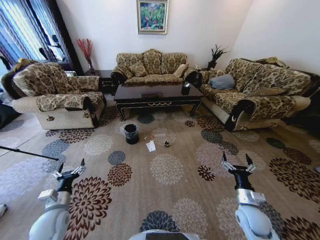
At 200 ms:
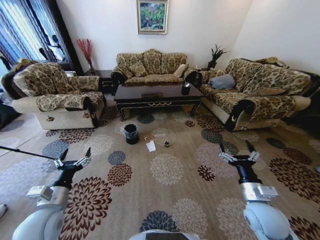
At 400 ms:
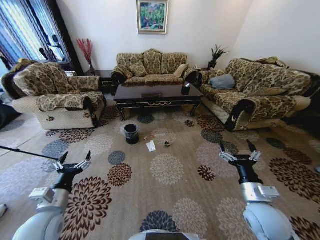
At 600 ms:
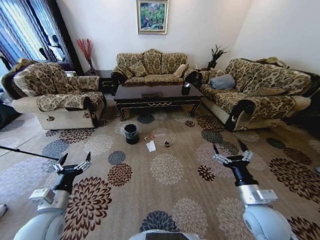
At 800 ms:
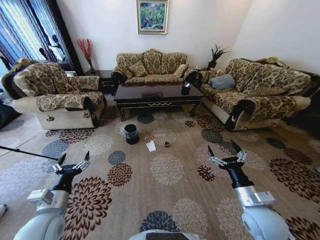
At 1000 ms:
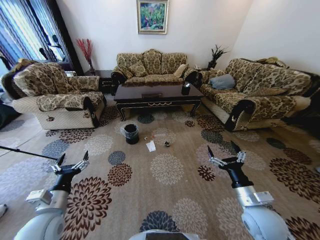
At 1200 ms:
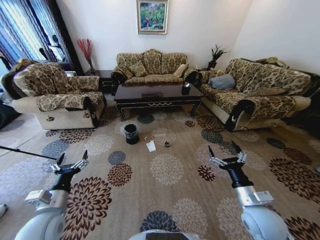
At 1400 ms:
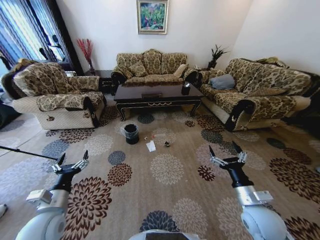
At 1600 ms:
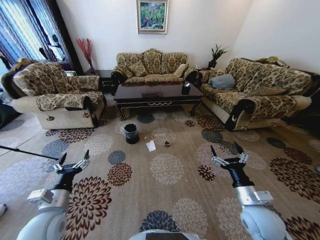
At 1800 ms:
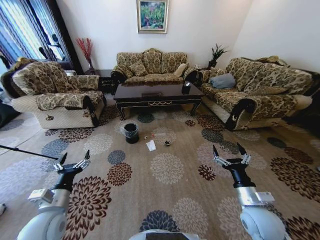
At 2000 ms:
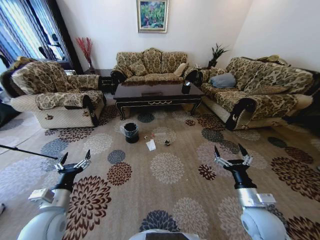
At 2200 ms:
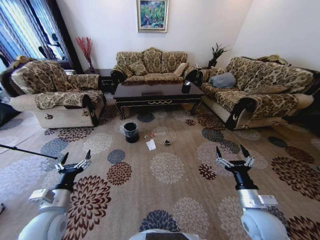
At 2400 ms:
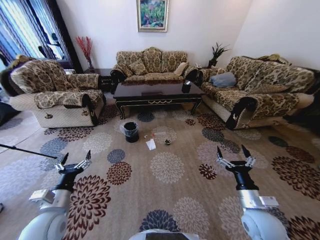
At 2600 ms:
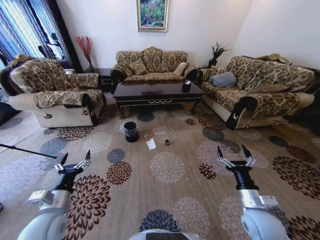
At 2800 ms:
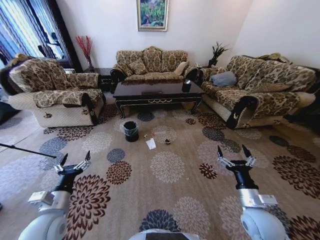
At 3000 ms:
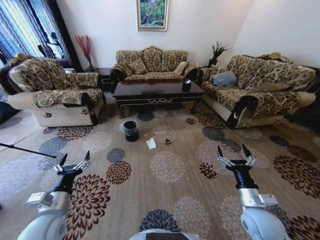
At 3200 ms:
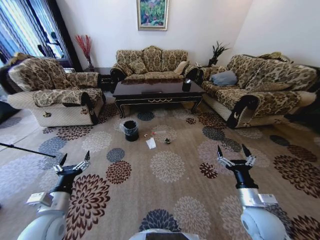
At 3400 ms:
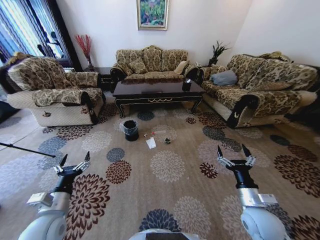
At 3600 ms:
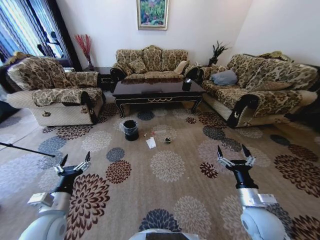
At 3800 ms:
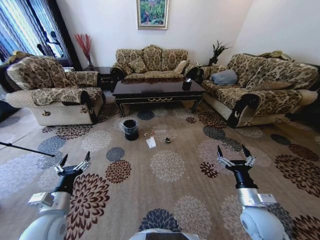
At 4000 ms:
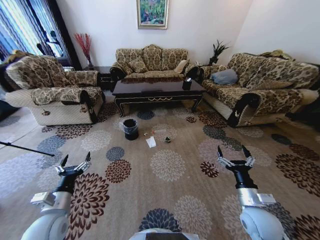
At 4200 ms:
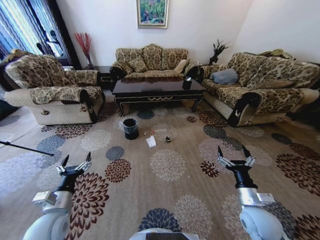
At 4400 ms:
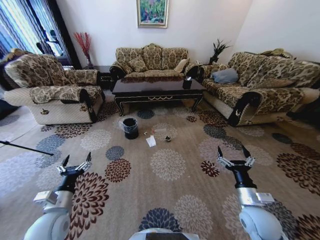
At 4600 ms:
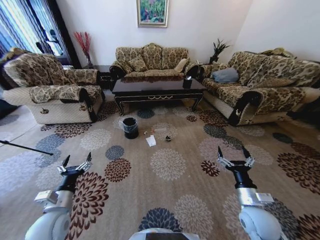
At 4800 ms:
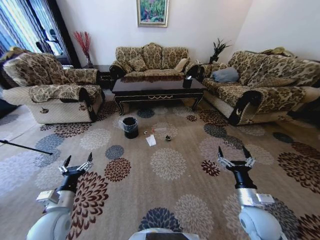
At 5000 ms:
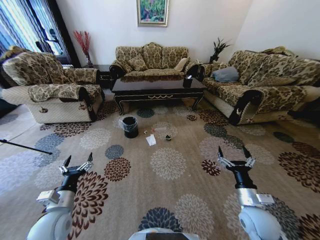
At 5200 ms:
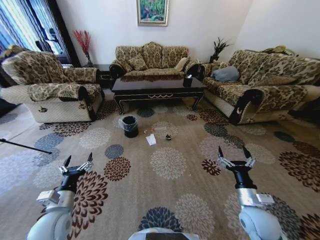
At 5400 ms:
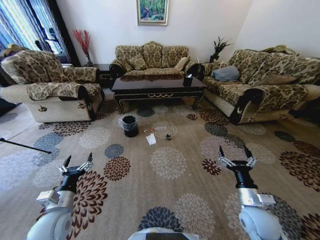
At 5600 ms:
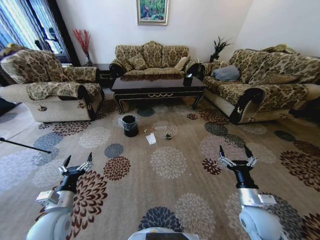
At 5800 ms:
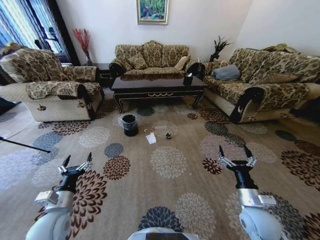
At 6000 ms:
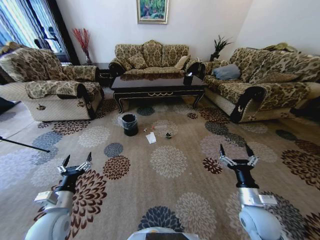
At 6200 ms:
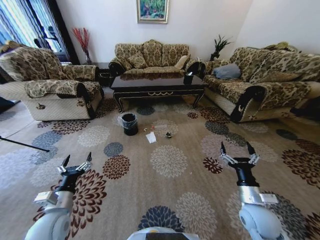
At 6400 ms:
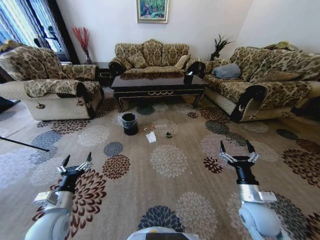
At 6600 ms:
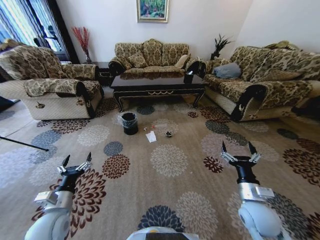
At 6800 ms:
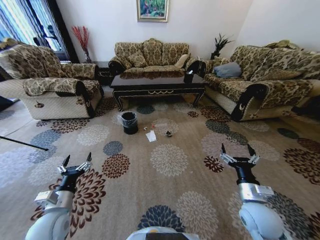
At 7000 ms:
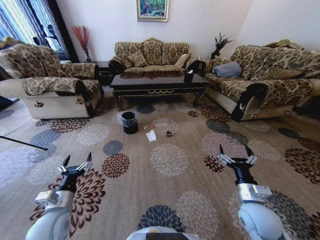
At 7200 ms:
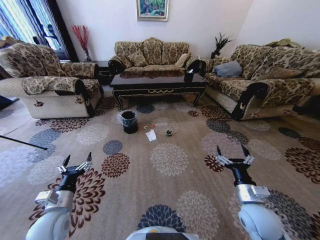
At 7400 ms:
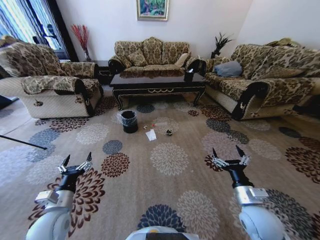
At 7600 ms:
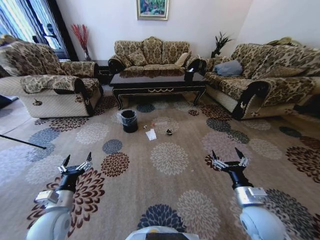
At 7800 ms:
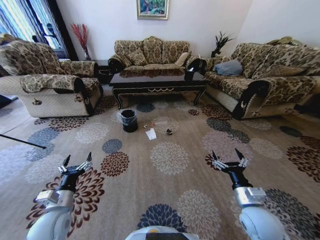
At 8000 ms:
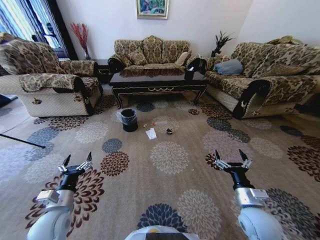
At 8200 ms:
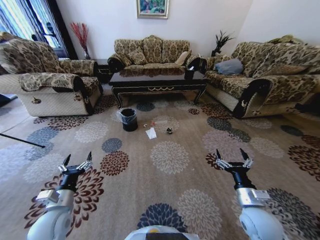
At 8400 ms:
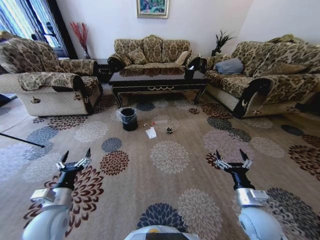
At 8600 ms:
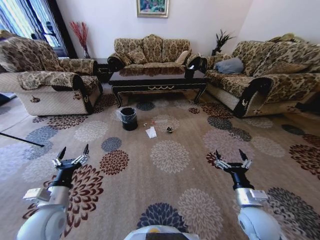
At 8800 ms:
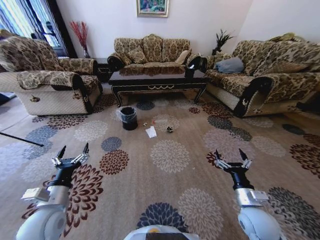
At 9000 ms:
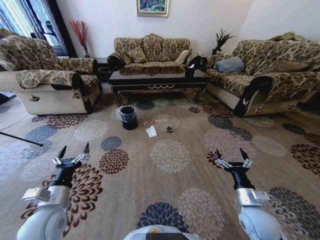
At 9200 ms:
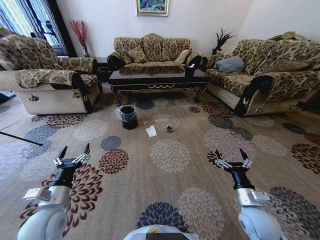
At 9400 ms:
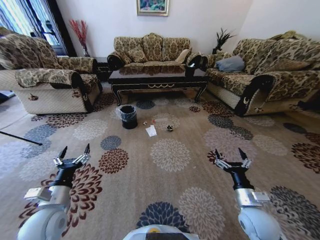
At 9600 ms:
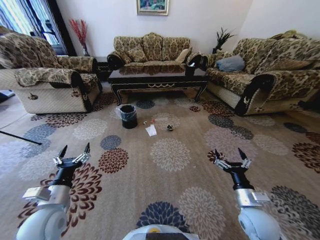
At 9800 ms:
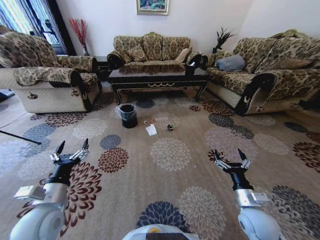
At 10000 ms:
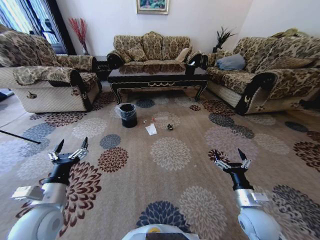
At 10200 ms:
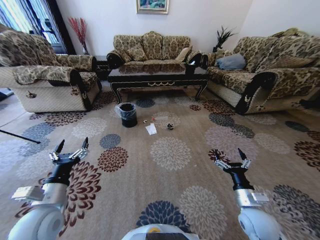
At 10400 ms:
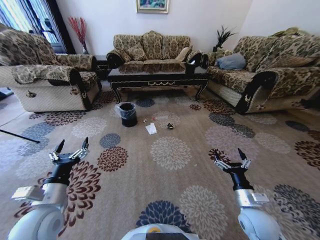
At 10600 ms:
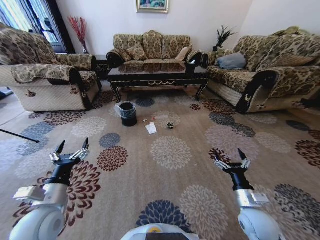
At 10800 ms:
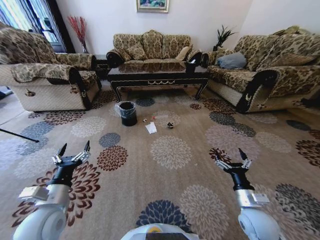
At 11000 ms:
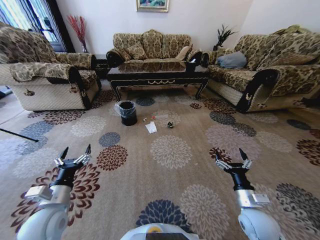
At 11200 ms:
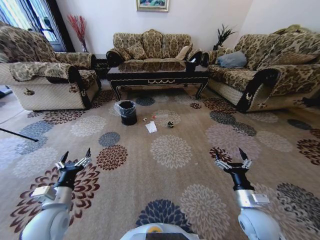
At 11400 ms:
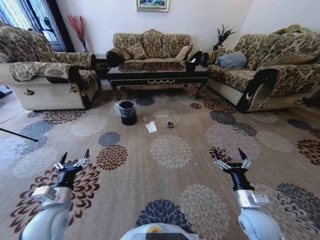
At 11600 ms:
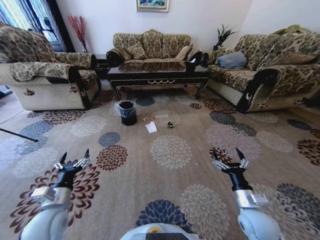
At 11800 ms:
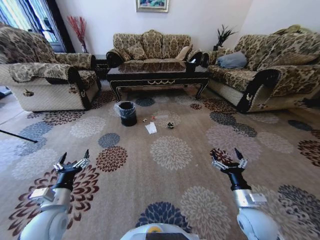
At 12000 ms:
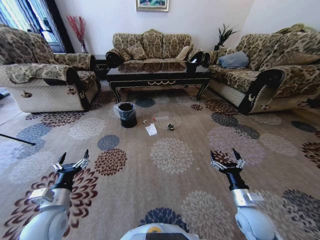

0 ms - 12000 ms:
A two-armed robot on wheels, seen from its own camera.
Task of the whole recording: Move to the front of the table and pick up the trash from the floor, then place it into the trash bin.
10400 ms - 12000 ms: The left gripper moves downward, approximately 5 cm.

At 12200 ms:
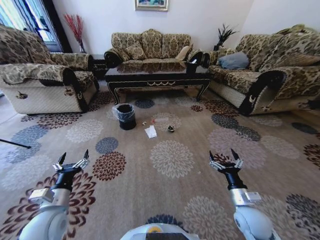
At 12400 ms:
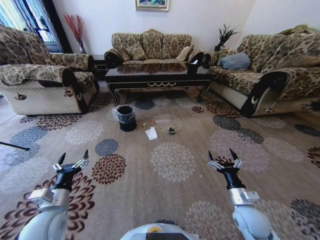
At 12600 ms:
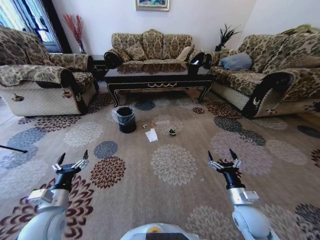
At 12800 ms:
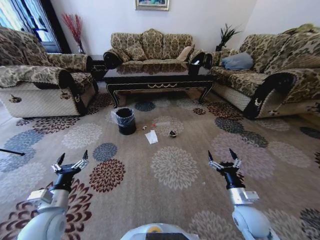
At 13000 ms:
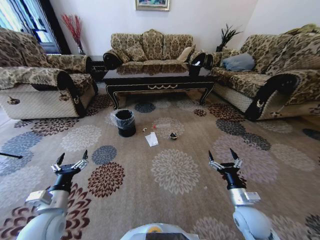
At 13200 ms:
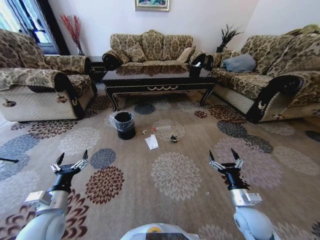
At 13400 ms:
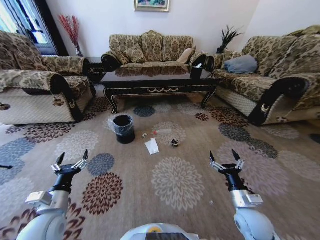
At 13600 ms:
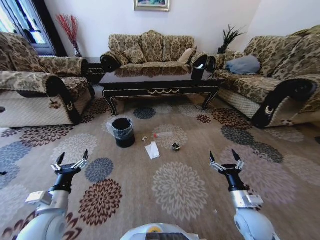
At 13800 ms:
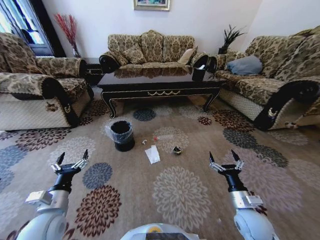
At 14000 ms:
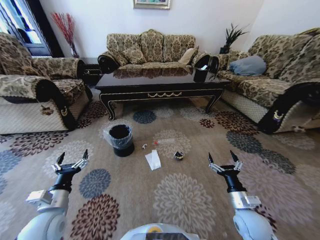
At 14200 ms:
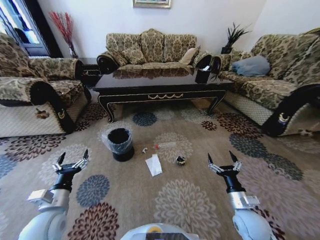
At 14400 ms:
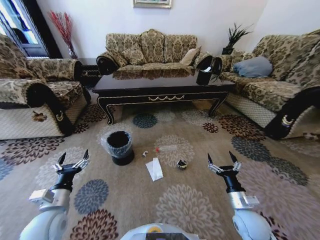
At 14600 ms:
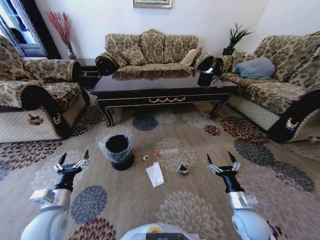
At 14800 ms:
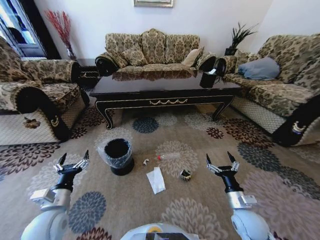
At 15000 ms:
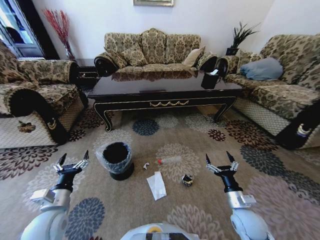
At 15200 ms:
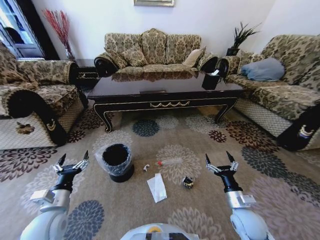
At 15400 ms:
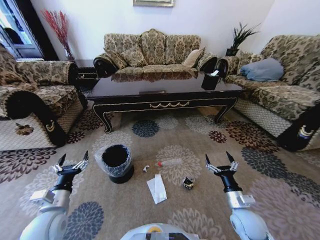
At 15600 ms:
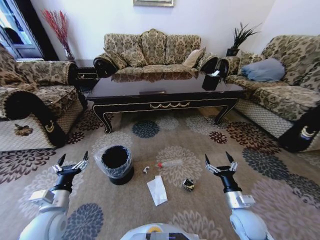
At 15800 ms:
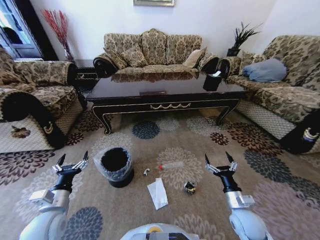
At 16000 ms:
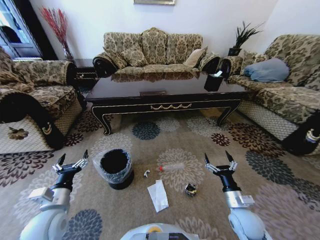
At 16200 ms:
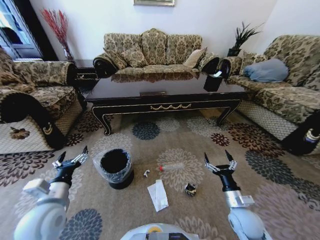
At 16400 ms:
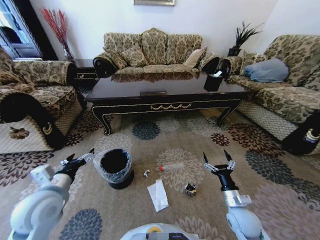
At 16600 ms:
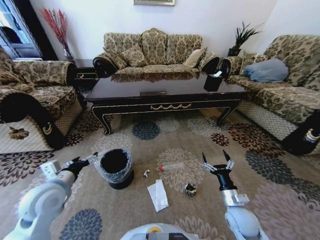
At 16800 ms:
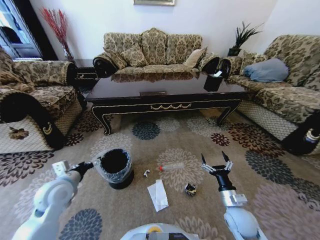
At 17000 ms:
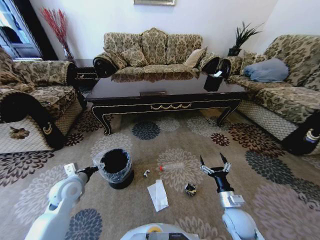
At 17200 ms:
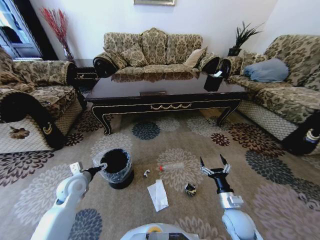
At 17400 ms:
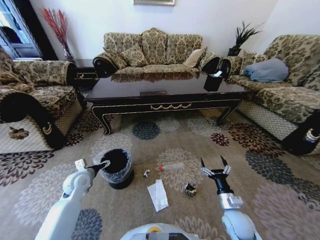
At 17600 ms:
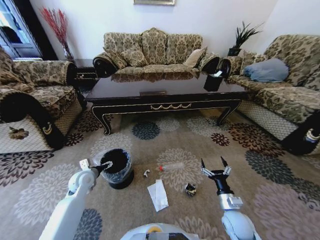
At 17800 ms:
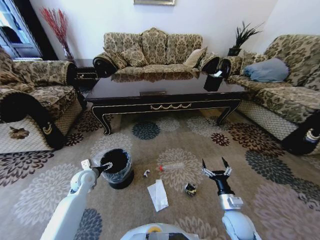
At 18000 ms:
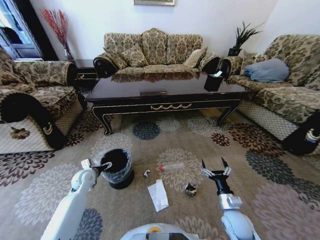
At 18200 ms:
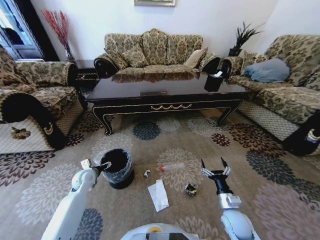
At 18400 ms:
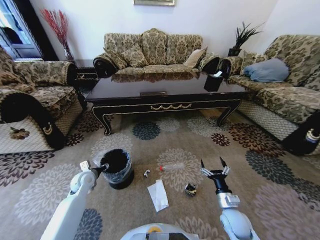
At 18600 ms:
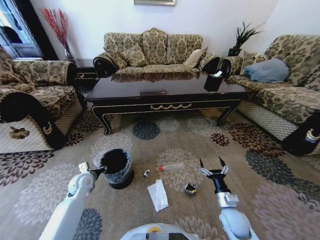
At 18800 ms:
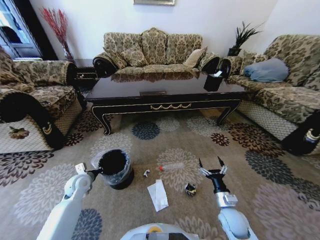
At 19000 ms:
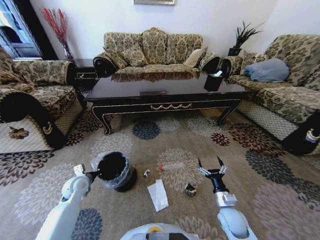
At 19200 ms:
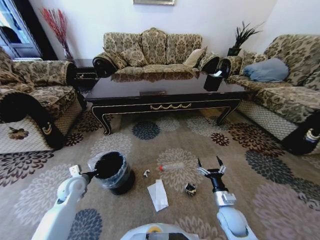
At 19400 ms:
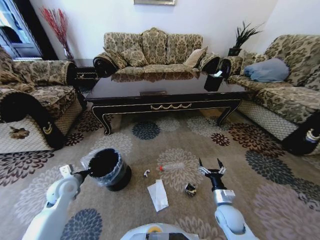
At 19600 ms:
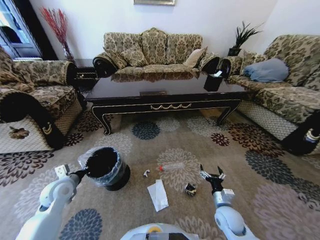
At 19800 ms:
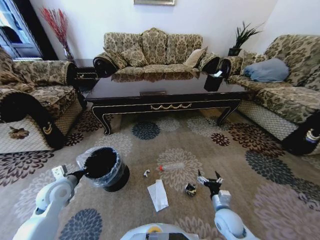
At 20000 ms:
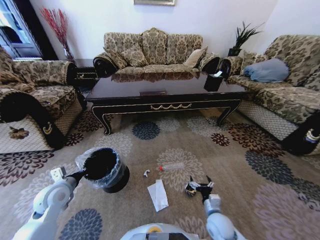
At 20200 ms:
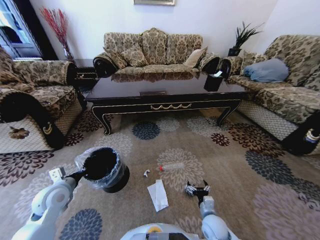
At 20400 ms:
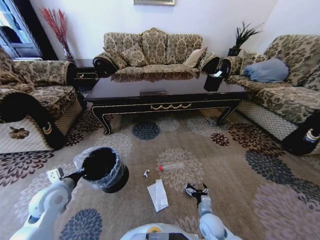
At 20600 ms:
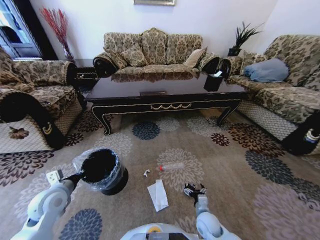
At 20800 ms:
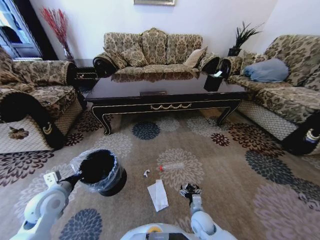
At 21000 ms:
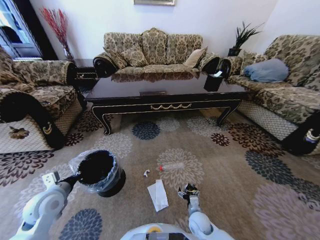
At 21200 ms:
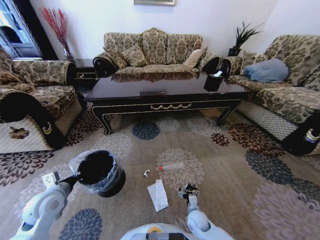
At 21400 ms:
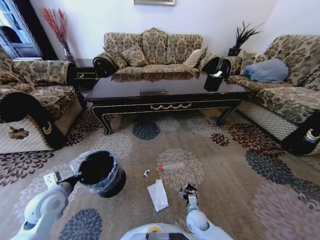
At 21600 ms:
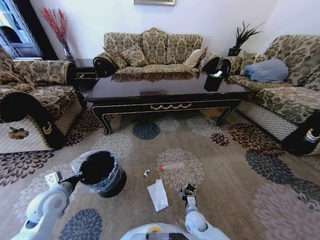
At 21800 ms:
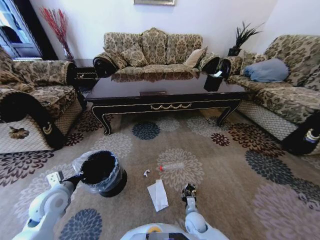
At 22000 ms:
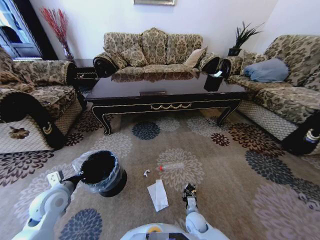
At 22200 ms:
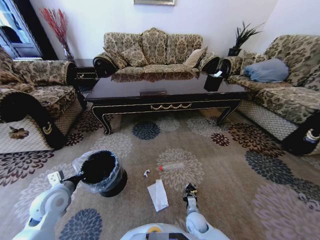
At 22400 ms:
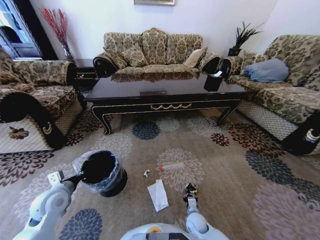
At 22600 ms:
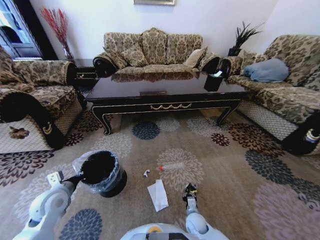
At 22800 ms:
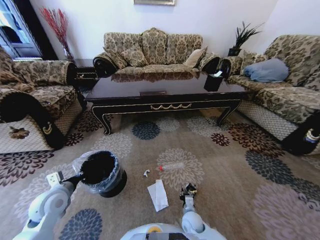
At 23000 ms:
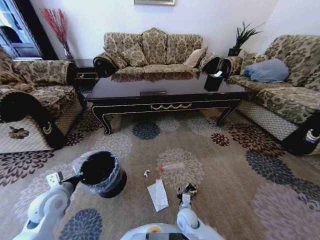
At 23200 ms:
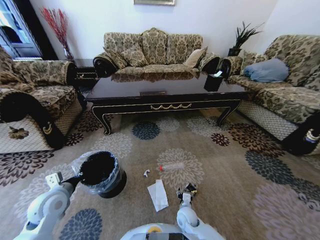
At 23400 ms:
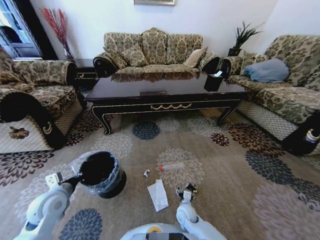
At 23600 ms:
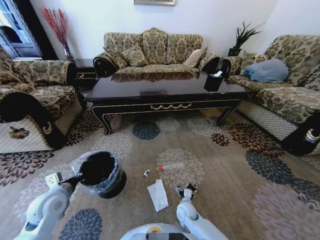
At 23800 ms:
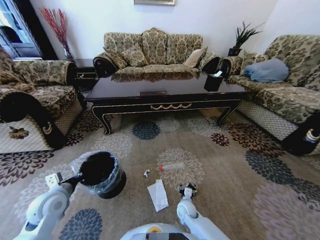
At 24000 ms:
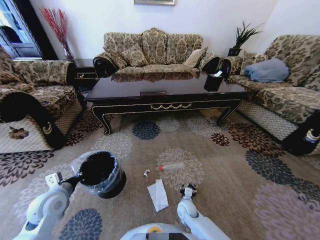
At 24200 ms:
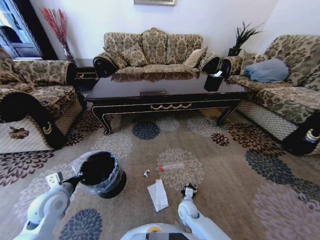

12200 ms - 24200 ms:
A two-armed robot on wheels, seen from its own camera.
Task of the whole recording: Move to the front of the table and pick up the trash from the floor, then place it into the trash bin.
15200 ms - 16600 ms: The left gripper goes approximately 10 cm upward and forward.
16600 ms - 18200 ms: The left gripper moves downward and forward, some 20 cm.
18200 ms - 19800 ms: The left gripper heads backward and upward, covering approximately 10 cm, and closes.
19800 ms - 21200 ms: The right gripper is displaced downward and to the left by about 15 cm.
21200 ms - 22600 ms: The right gripper closes its fingers.
22600 ms - 24200 ms: The right gripper goes approximately 5 cm forward, and opens and closes again.
